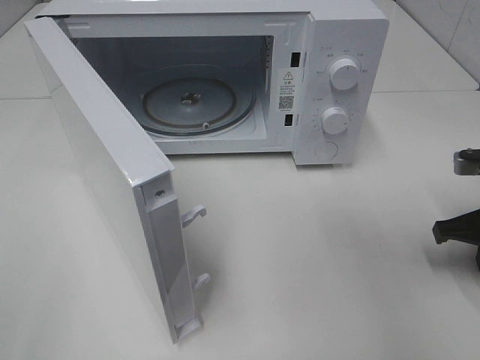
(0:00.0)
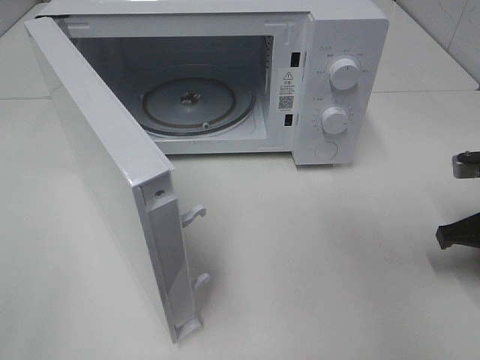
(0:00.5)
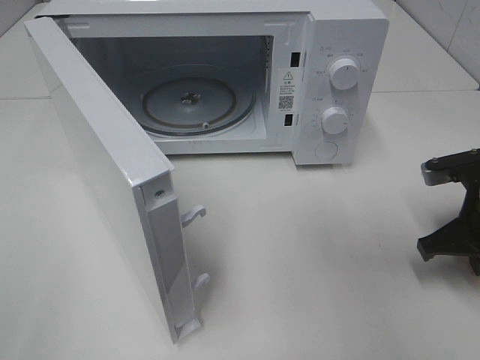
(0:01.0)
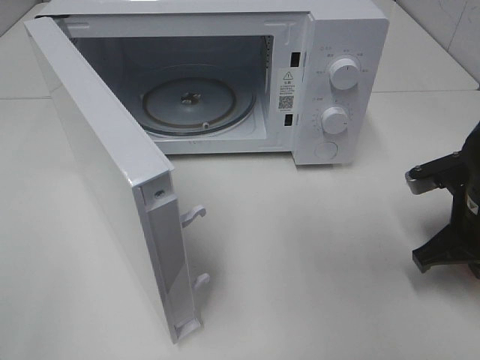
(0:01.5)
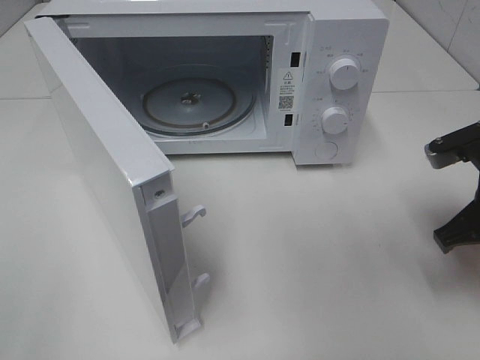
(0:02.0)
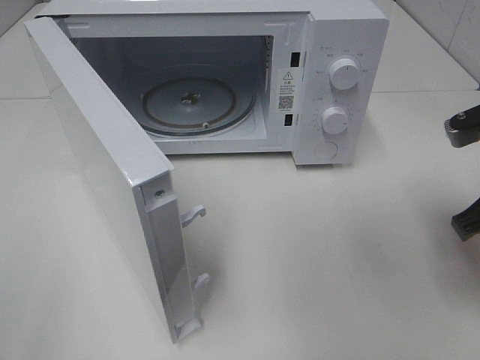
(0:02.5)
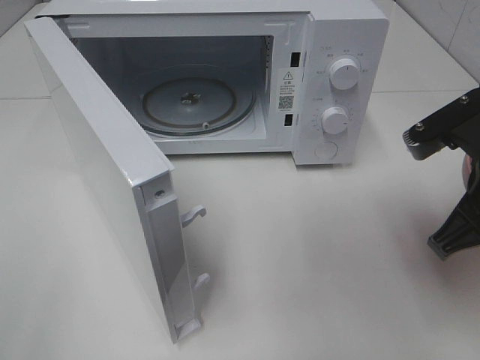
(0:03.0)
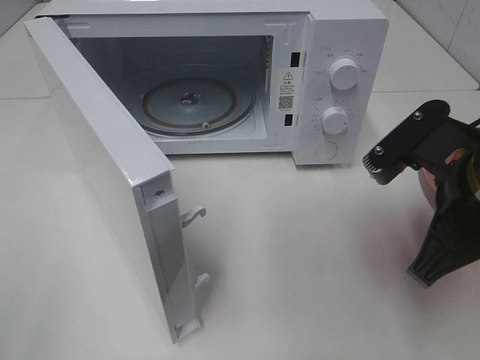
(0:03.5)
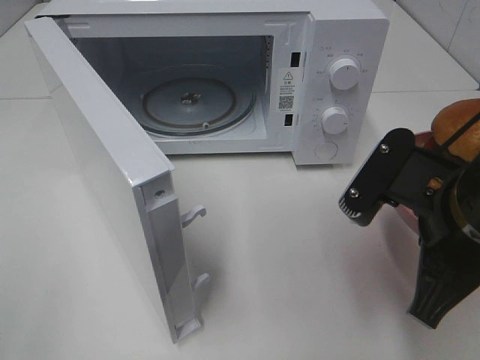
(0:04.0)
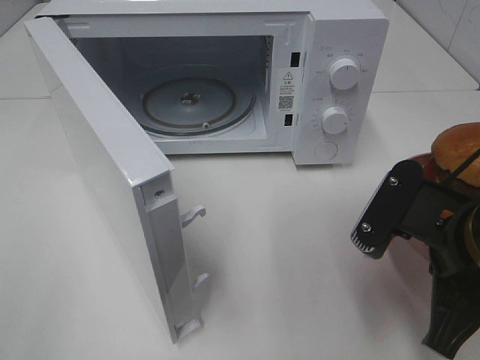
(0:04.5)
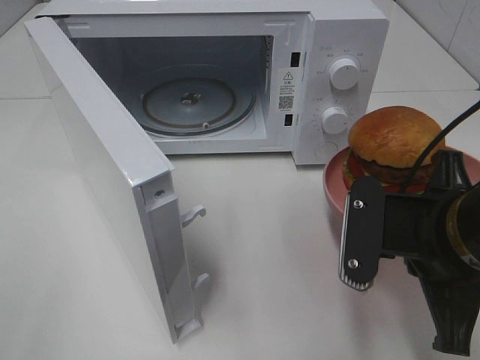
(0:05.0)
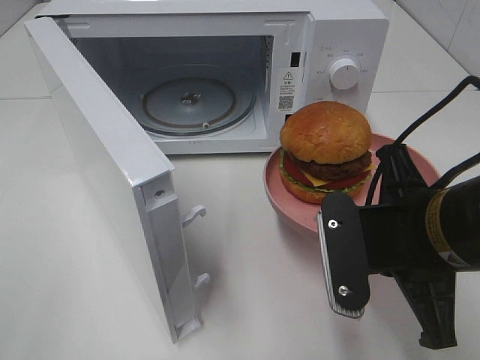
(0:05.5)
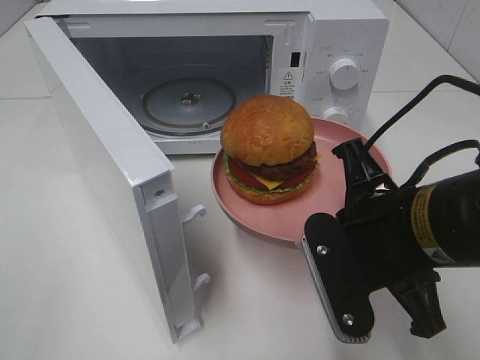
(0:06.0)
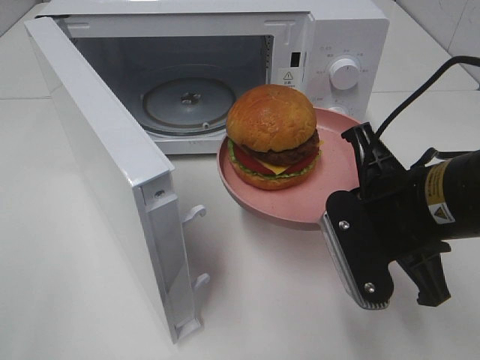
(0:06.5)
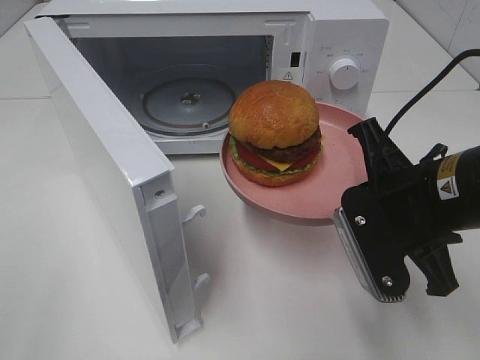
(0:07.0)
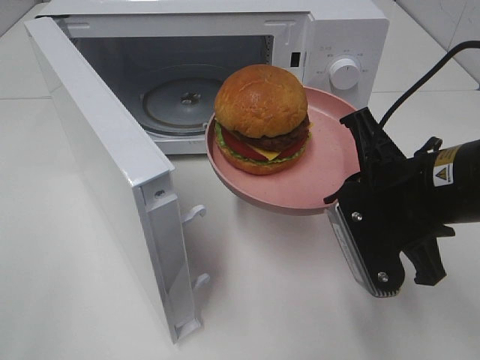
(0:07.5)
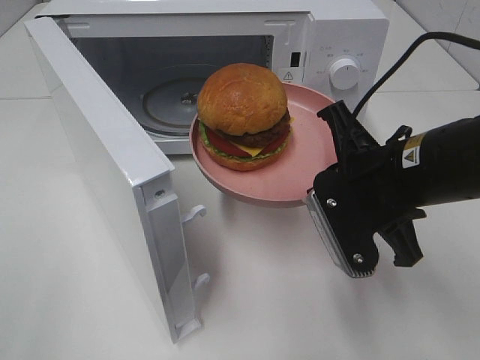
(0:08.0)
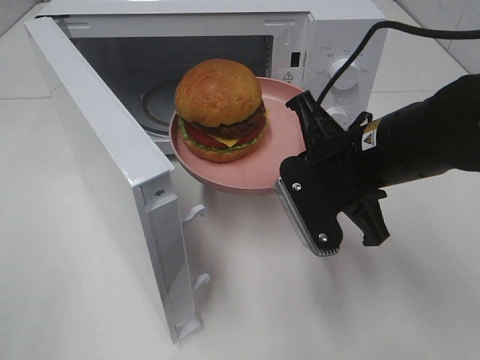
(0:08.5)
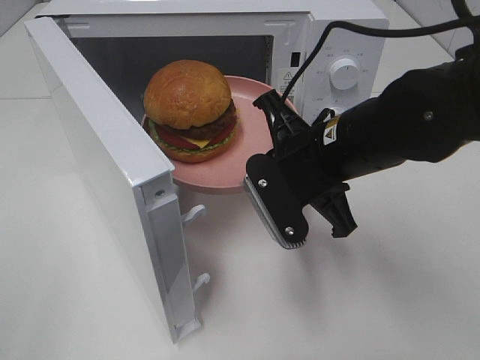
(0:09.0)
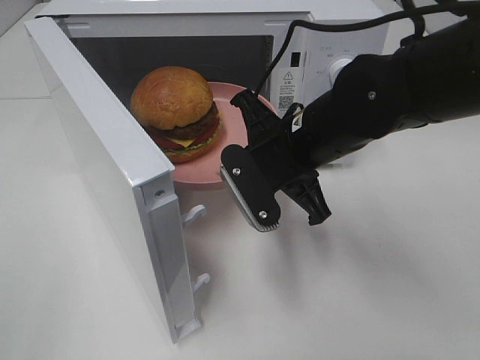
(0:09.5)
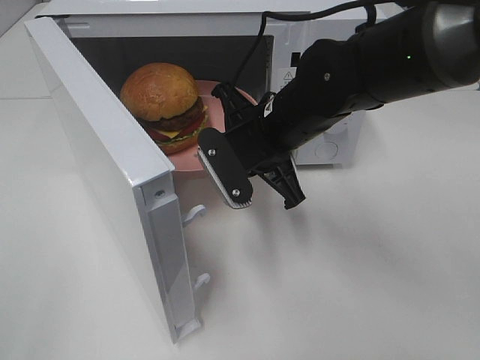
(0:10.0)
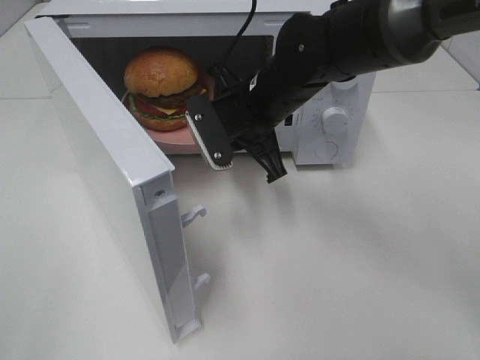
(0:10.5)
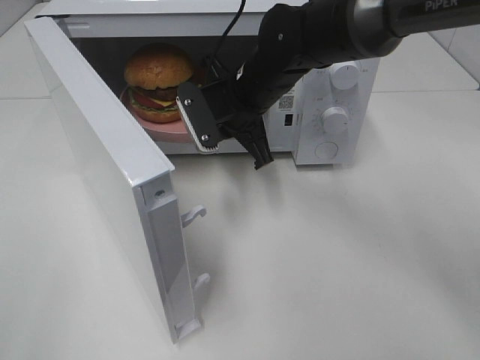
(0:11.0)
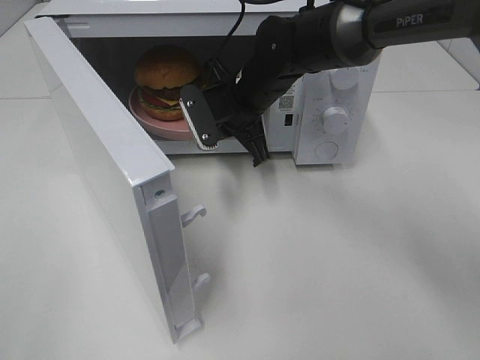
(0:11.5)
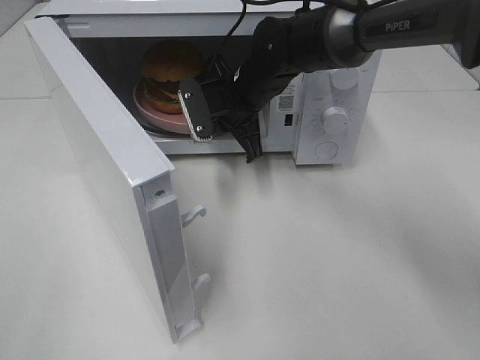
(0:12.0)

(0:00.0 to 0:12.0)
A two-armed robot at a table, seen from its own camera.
Task of the whole recording: Heat the burger.
0:00.0 - 0:02.0: The right gripper shifts approximately 5 cm upward and to the left.
0:02.0 - 0:04.0: The right gripper shifts some 10 cm to the left and backward.
0:06.0 - 0:08.0: The right gripper is displaced forward by approximately 5 cm.
0:08.0 - 0:10.0: The right gripper is displaced to the left and forward by roughly 15 cm.
0:10.0 - 0:12.0: The right gripper moves forward, about 10 cm.

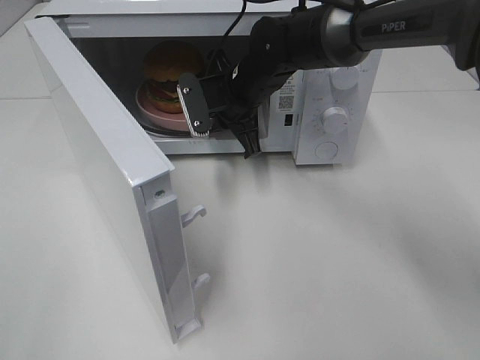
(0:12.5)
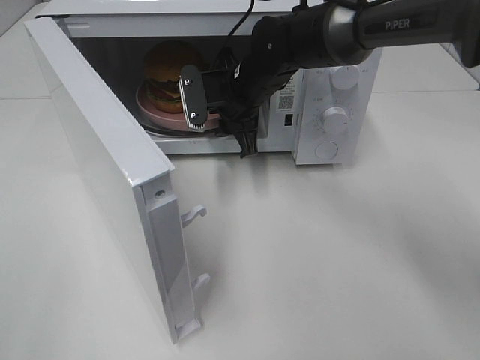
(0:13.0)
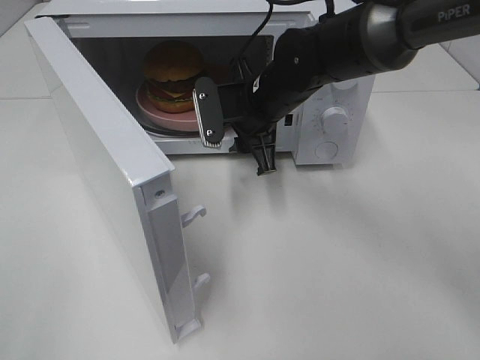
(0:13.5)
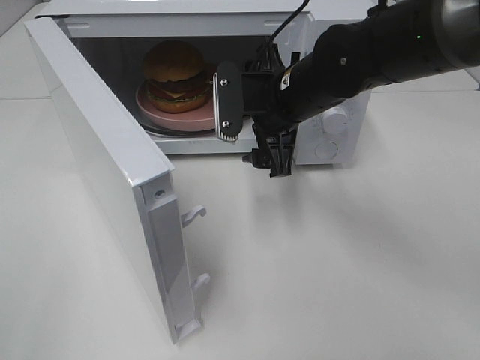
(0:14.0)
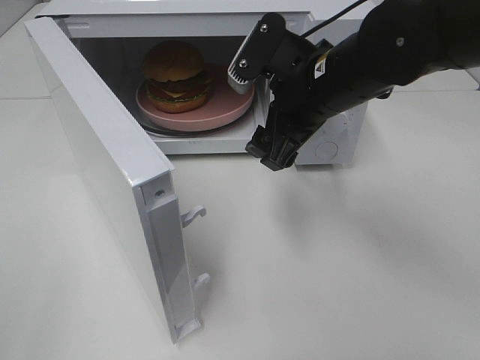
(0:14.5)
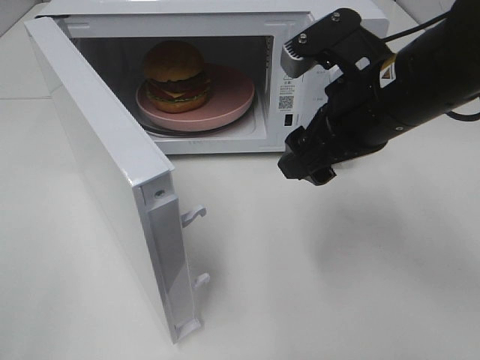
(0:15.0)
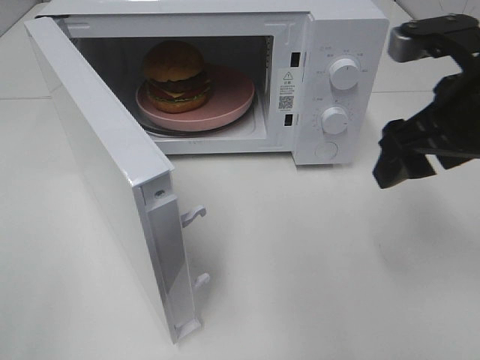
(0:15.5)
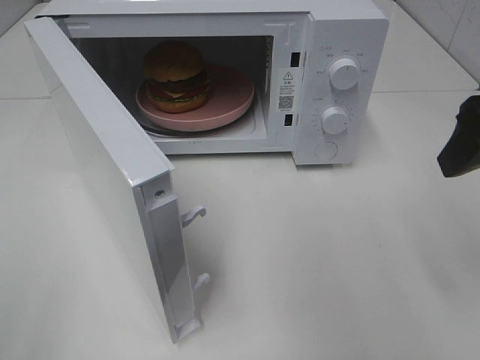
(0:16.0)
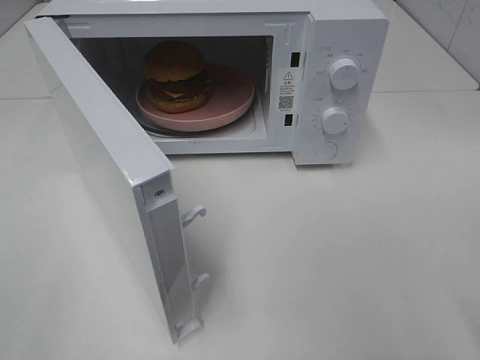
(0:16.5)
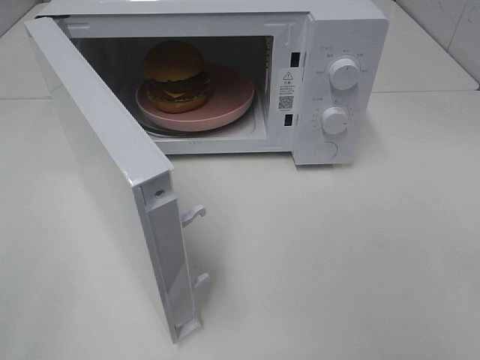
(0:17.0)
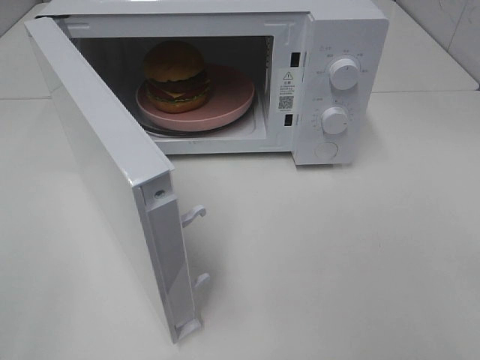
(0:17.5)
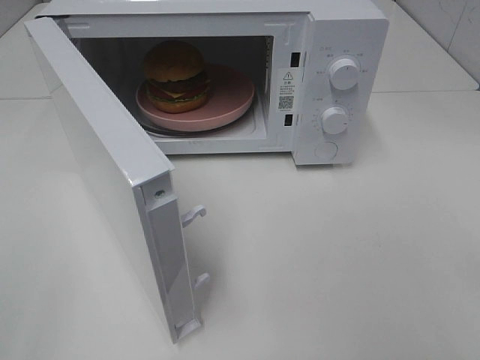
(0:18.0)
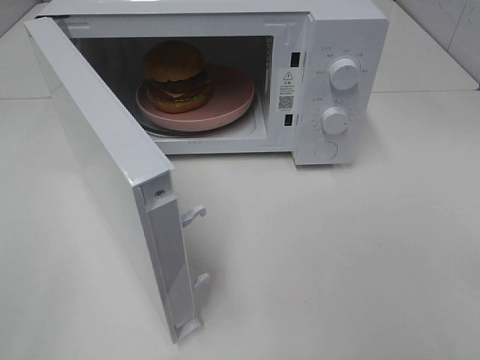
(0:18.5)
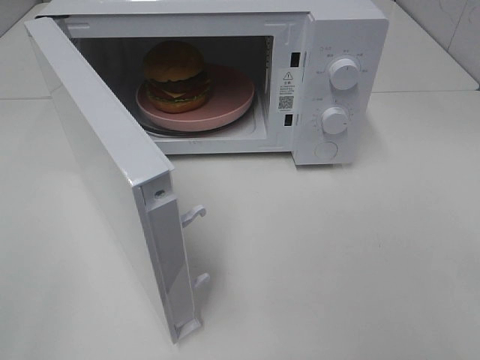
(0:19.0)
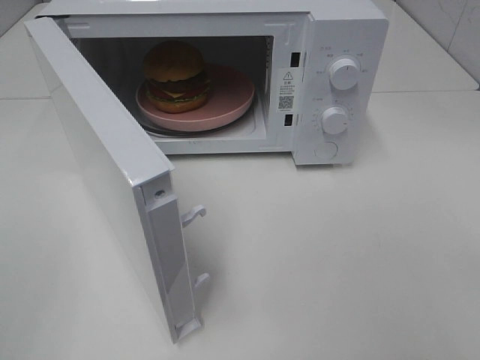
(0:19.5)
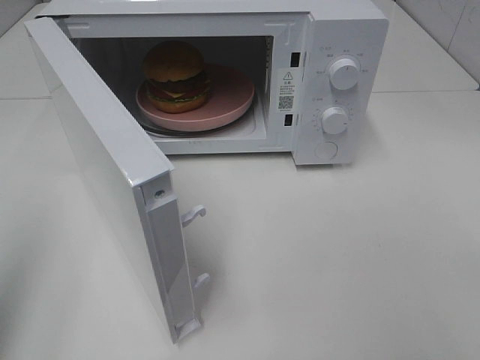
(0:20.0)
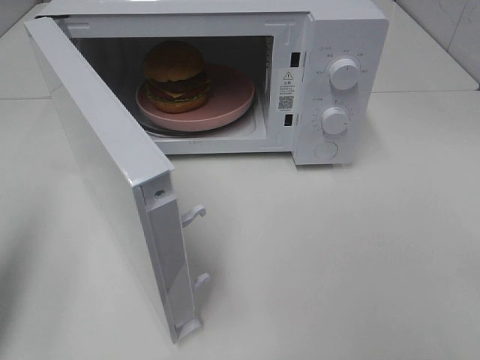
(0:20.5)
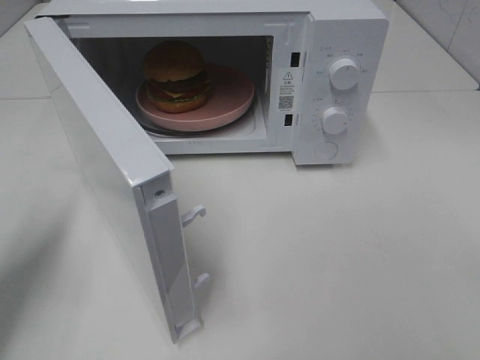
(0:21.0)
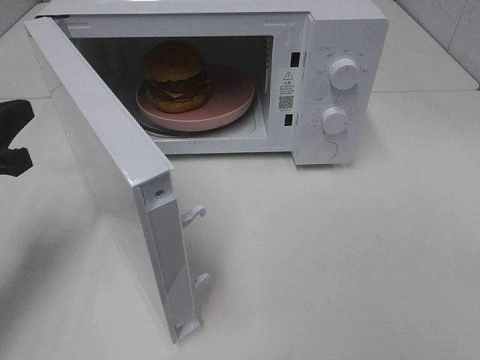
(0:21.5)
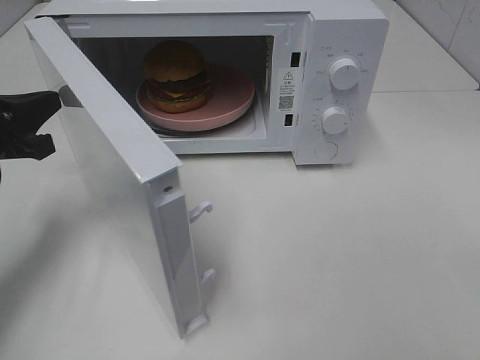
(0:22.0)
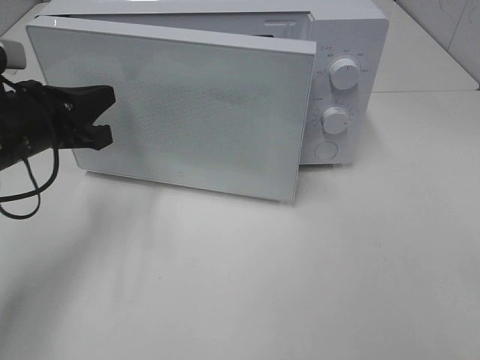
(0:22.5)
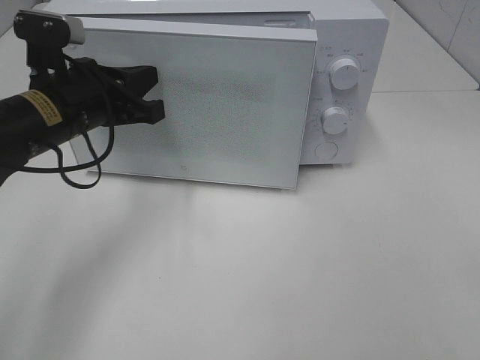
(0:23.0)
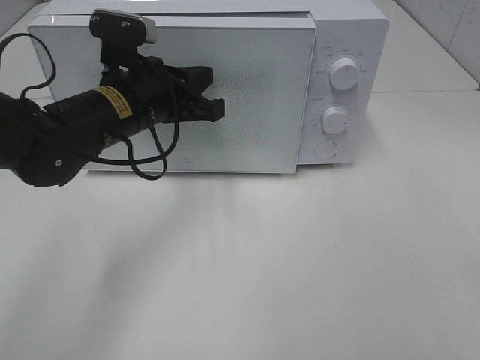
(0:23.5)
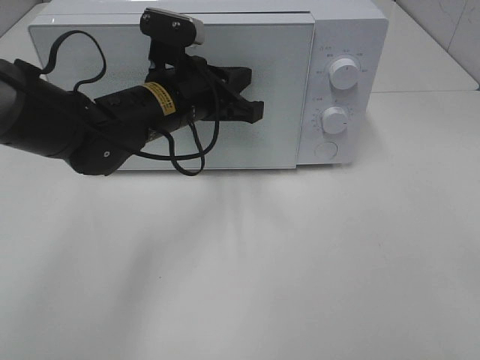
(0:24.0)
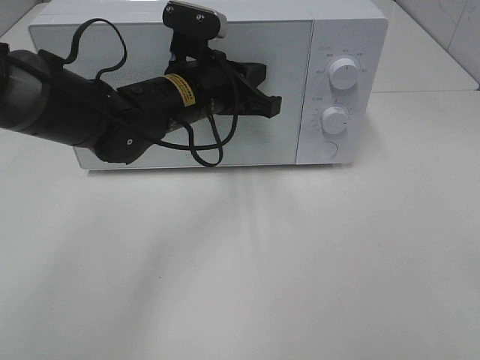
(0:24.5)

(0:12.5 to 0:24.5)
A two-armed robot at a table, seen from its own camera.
Task of the whole recording: Heat the burger.
Step, 0:13.0 - 0:24.0: Left hand: close the microwave door.
0:12.5 - 0:14.5: The right gripper shifts some 15 cm backward, to the right and upward, and opens its fingers.
0:14.5 - 0:16.5: The right gripper travels backward and to the right by some 25 cm.
0:18.5 - 0:20.5: The left gripper moves forward, about 15 cm, and closes up.
0:20.5 - 0:22.5: The left gripper shifts roughly 20 cm forward, to the right and downward.
0:22.5 - 0:24.5: The left gripper goes some 15 cm to the right.

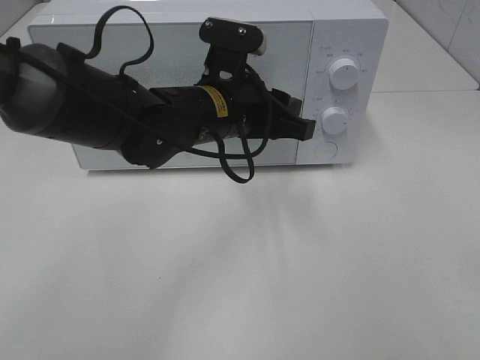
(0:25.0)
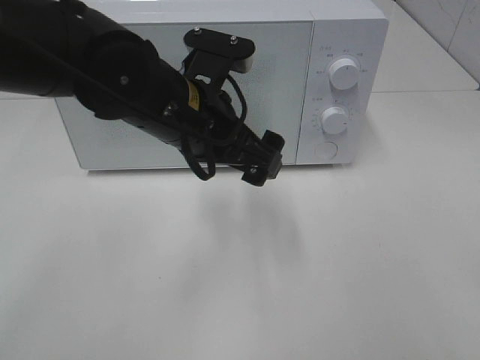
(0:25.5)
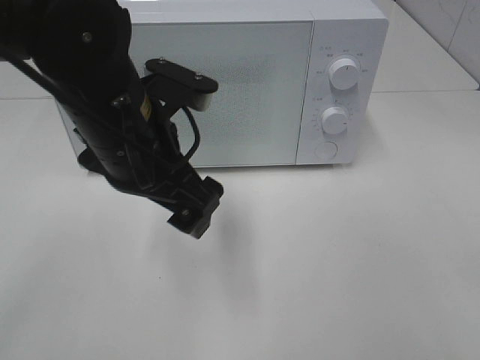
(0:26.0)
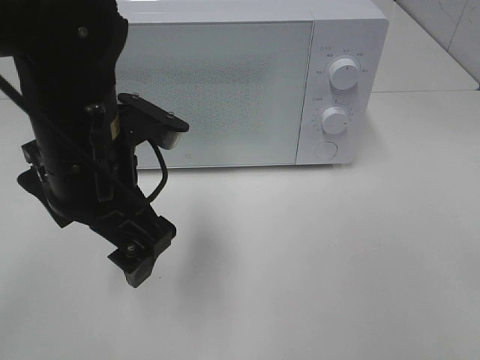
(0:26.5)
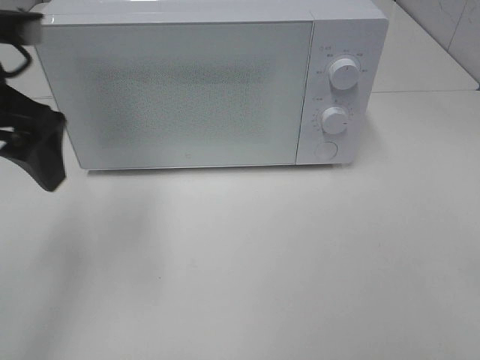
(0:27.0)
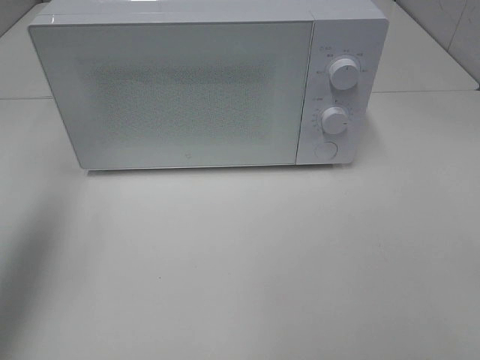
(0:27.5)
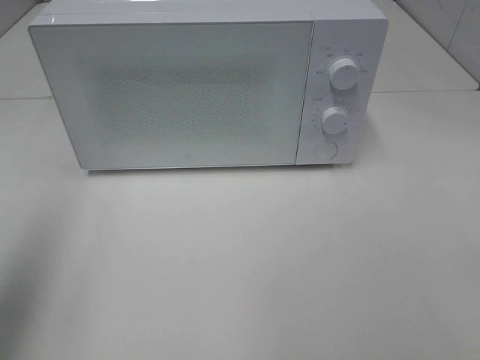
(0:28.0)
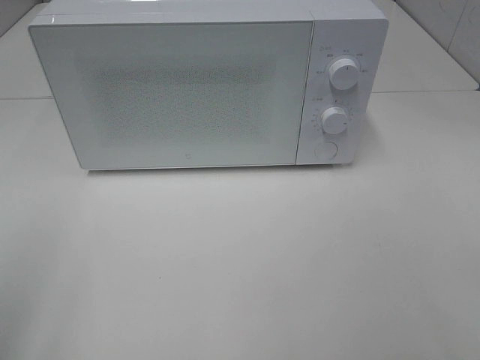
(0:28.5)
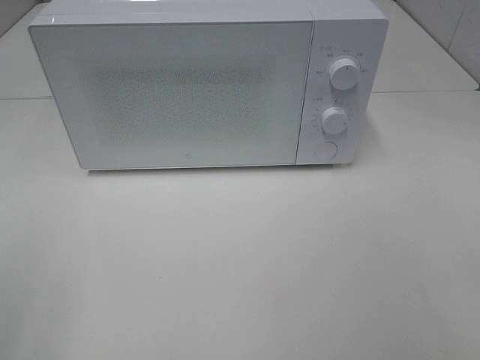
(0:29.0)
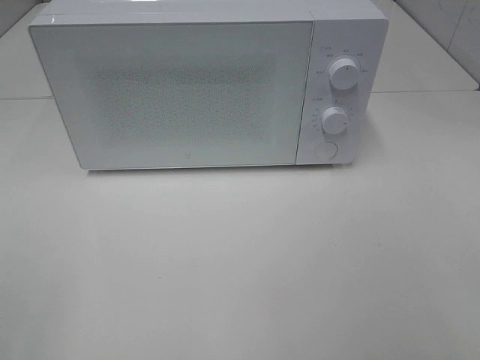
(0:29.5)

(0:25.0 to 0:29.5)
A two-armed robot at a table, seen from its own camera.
Task of the whole recording: Heat the burger.
0:25.0 - 0:27.0: The left gripper goes some 25 cm to the left and upward, and opens.
0:27.0 - 0:29.5: The left gripper moves backward, some 25 cm.
